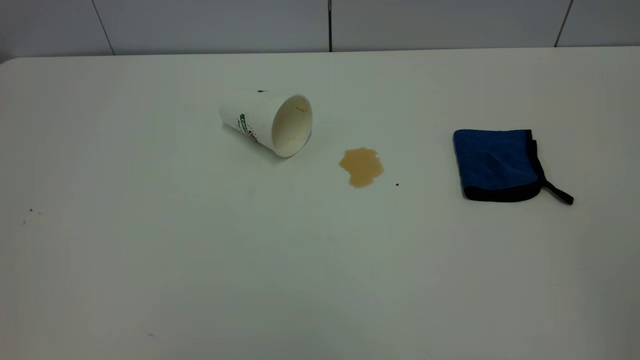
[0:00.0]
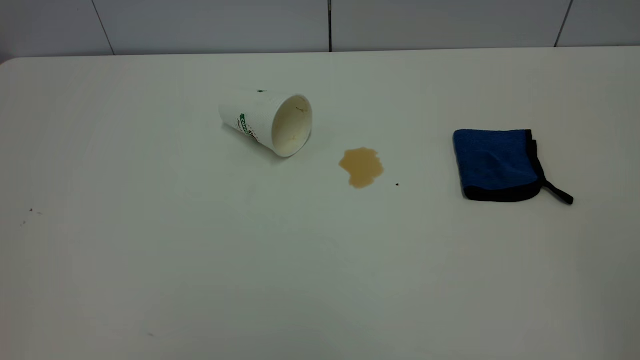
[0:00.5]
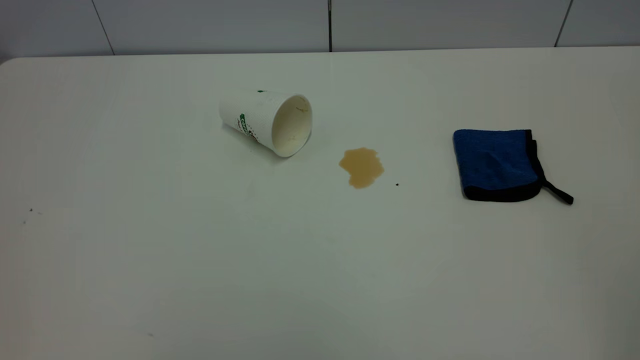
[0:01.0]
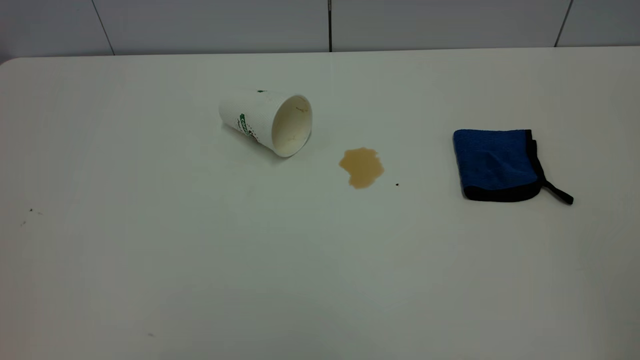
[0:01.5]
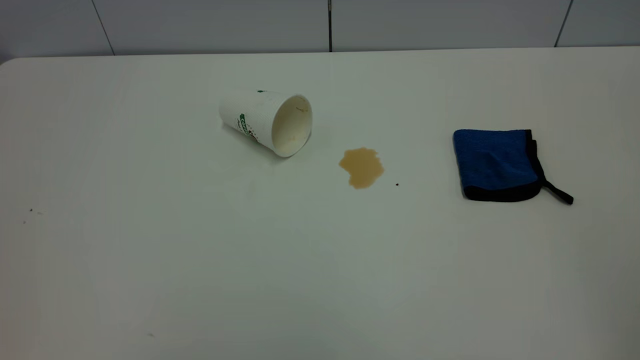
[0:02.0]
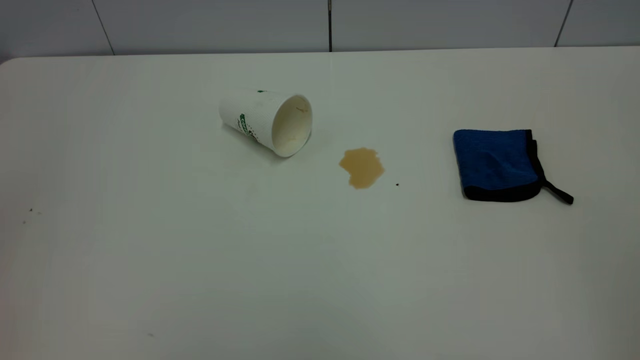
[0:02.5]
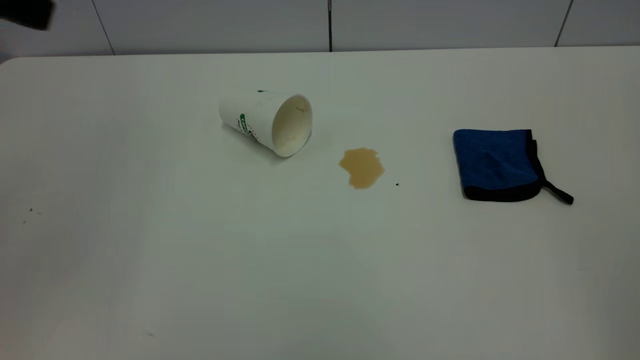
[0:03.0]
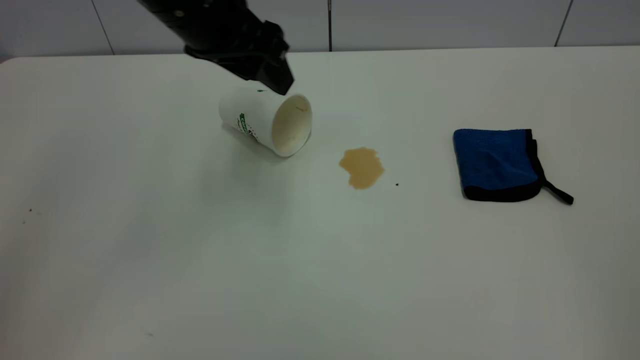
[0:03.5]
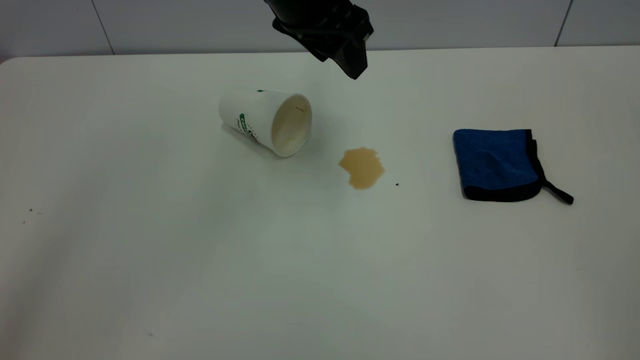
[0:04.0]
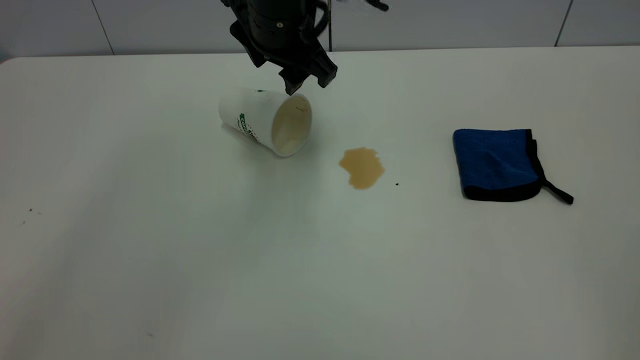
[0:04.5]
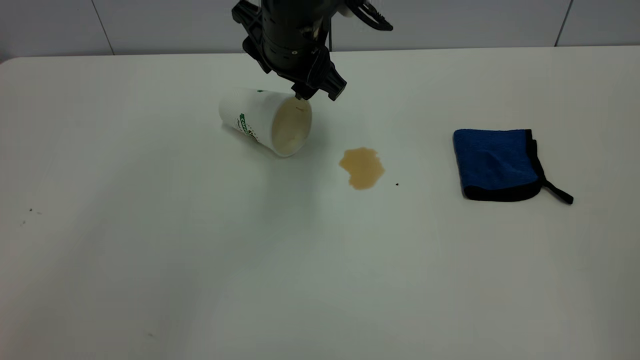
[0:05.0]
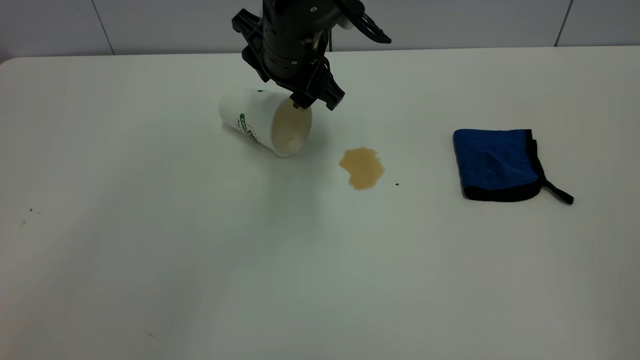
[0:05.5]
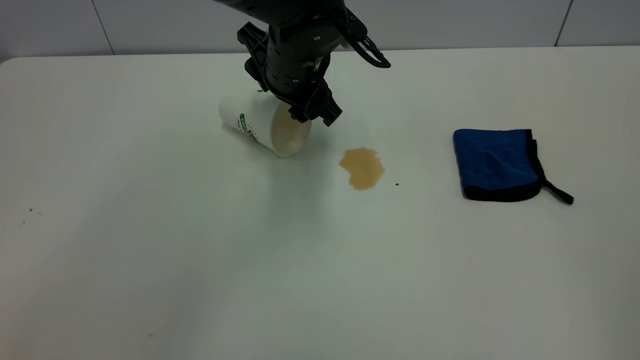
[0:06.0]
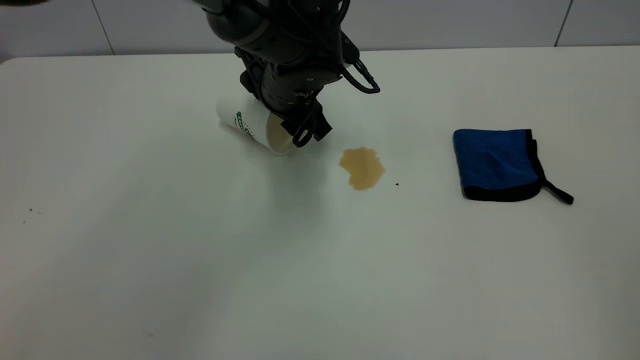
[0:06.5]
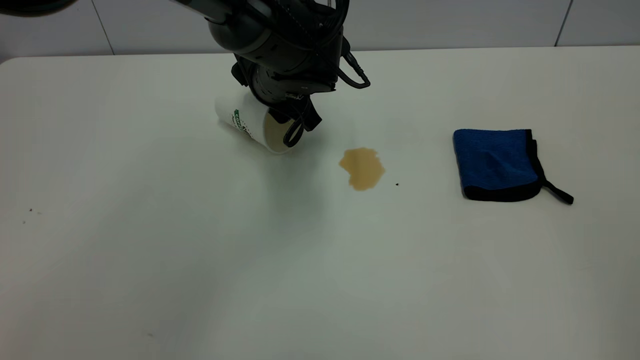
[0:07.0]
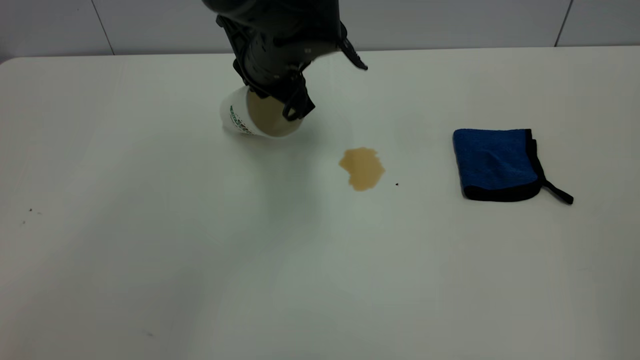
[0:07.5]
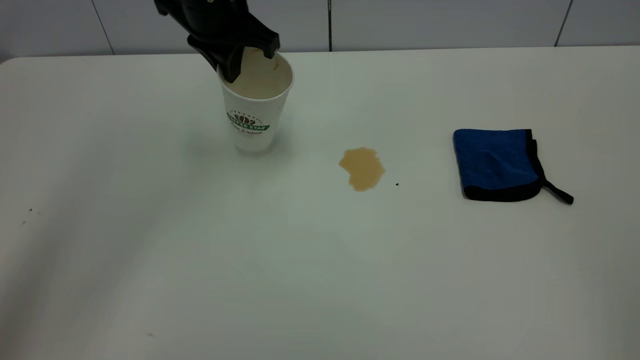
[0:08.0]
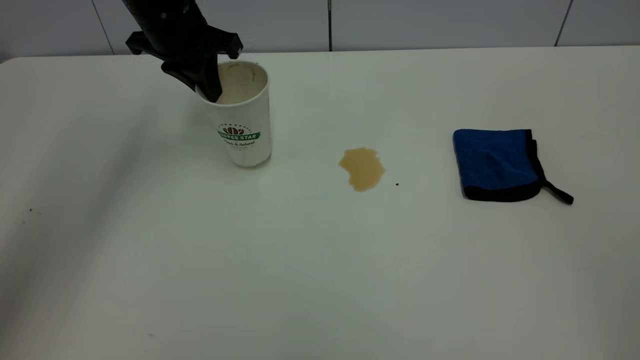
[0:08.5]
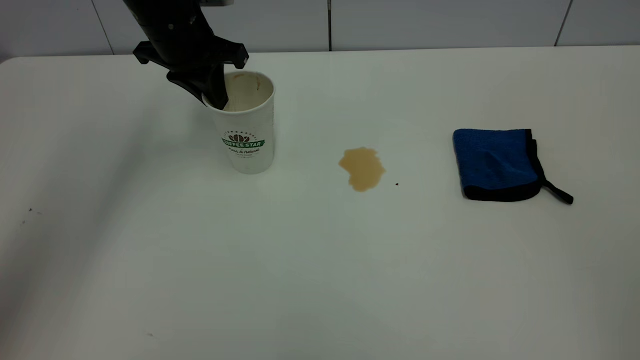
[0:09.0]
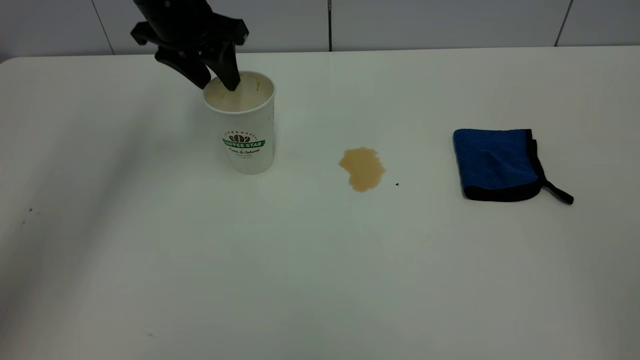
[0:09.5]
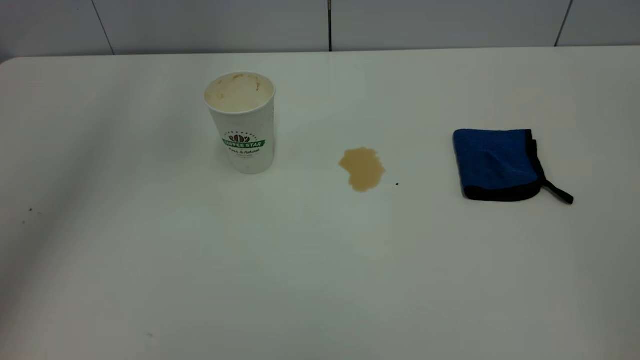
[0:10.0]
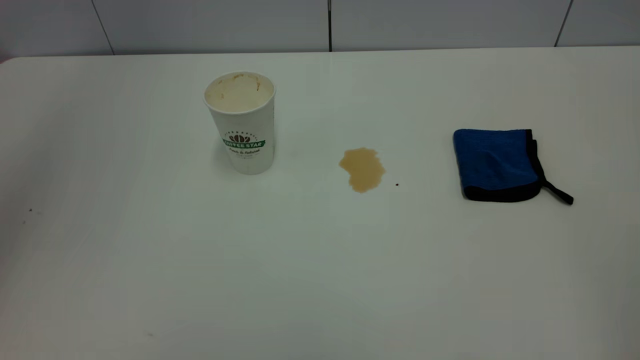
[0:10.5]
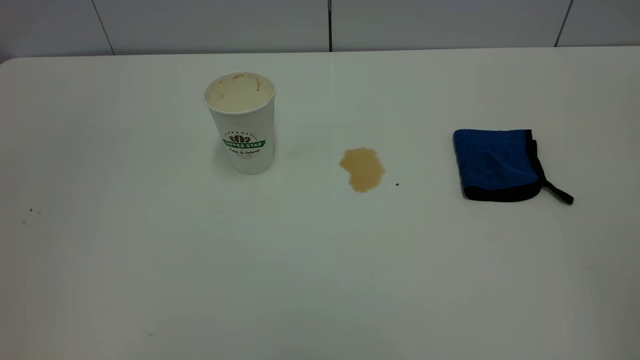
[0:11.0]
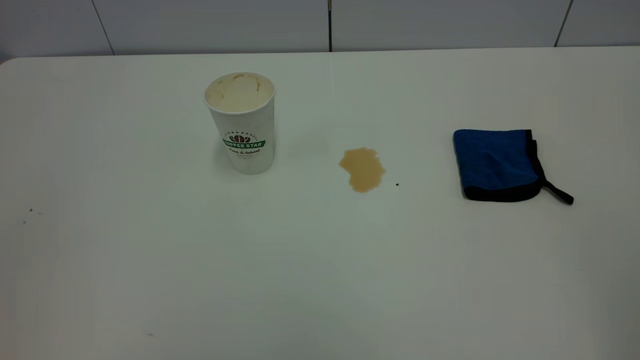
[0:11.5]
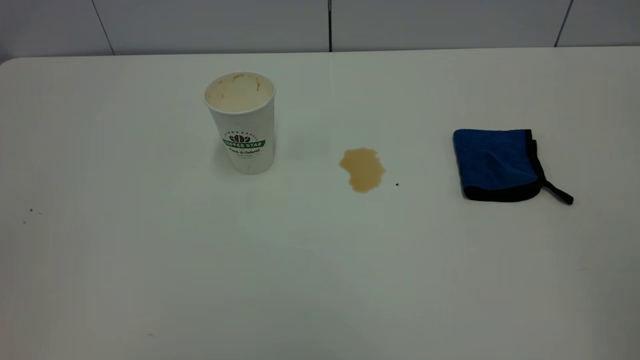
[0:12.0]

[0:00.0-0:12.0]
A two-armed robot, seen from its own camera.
Task of the whole recording: the left gripper pick up the fallen cup and place it upright, the right gripper grasp the blue rag and wipe the tea stain on the table, the right gripper put the blue rag back in its original position.
Step, 0:00.0 to 0:09.5: Stand the paper cup upright.
0:00.0 to 0:02.0: Neither gripper changes place.
0:02.0 to 0:04.0: The left gripper goes some 50 cm forward and to the right.
0:04.0 to 0:06.0: The left gripper heads downward, covering about 10 cm.
0:06.0 to 0:08.0: The left gripper goes some 10 cm to the left and upward, and closes.
0:08.0 to 0:10.0: The left gripper heads upward, covering some 15 cm, and opens up.
0:10.0 to 0:12.0: The left gripper shifts roughly 40 cm backward.

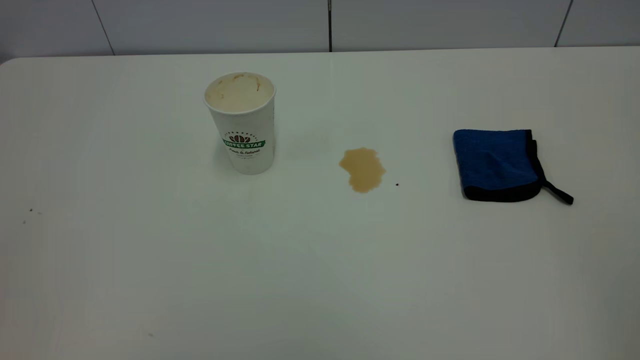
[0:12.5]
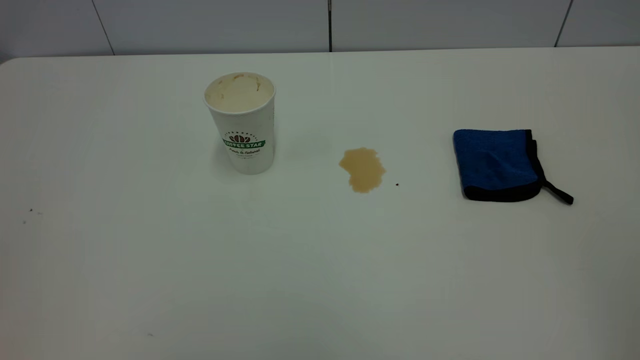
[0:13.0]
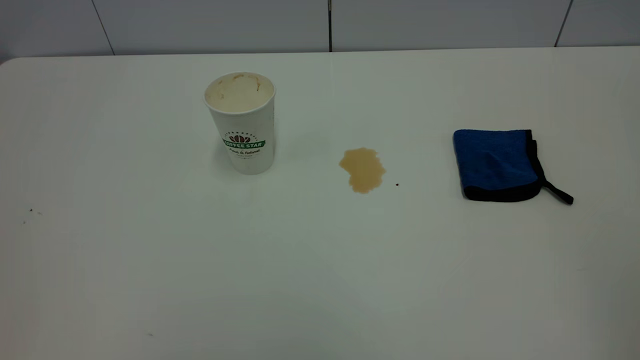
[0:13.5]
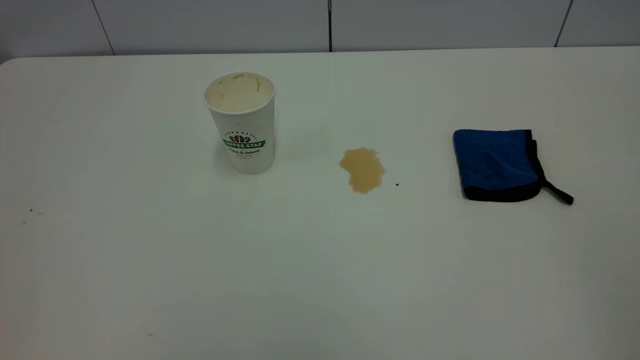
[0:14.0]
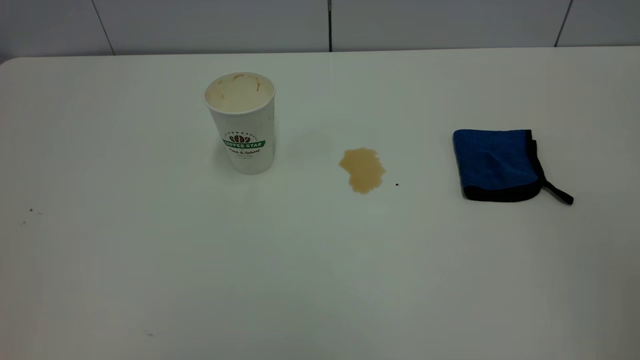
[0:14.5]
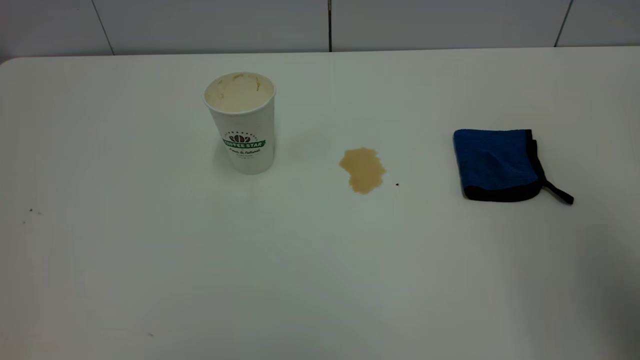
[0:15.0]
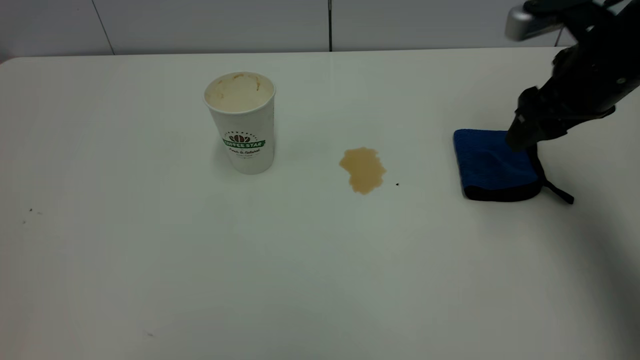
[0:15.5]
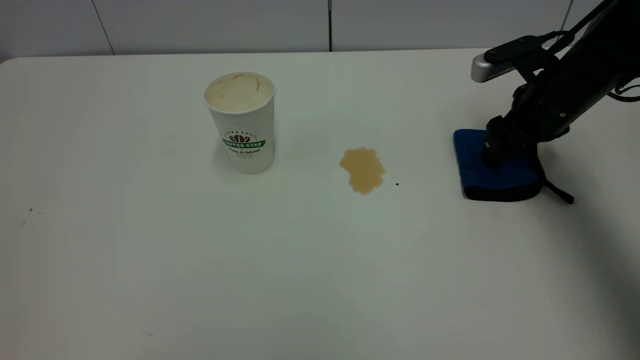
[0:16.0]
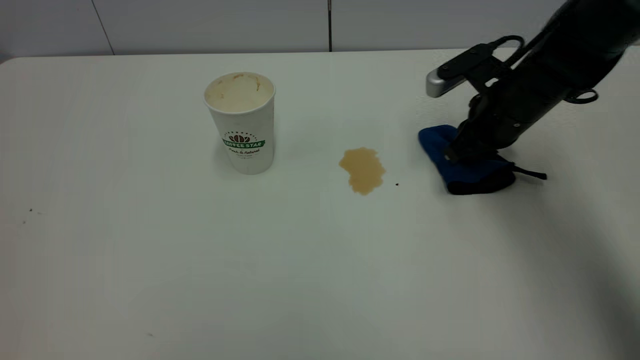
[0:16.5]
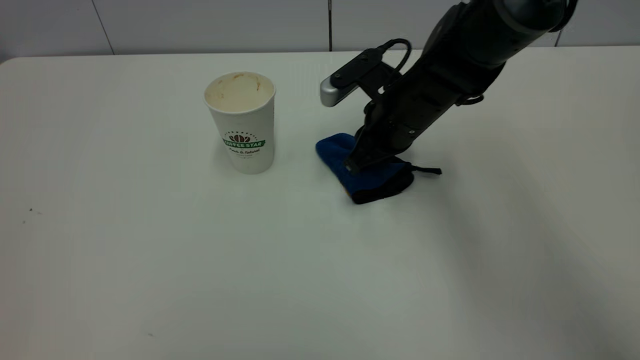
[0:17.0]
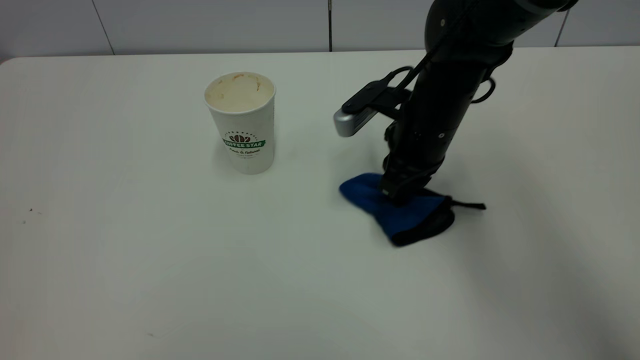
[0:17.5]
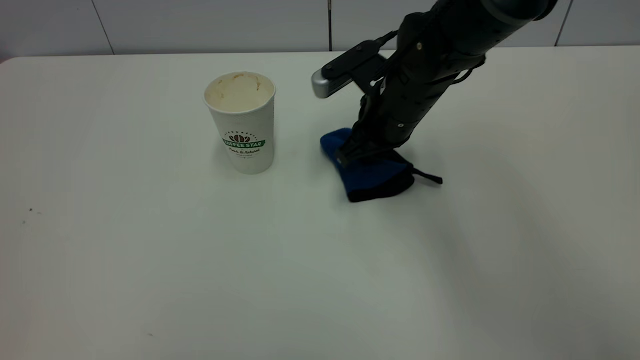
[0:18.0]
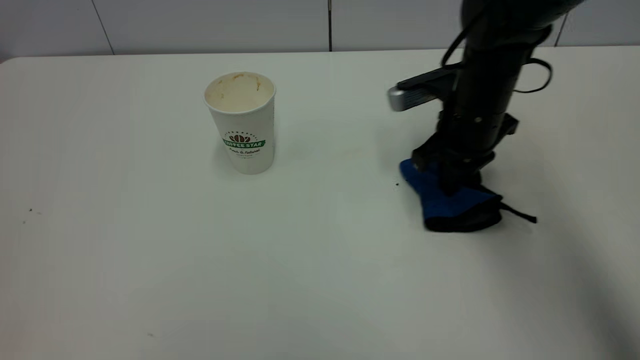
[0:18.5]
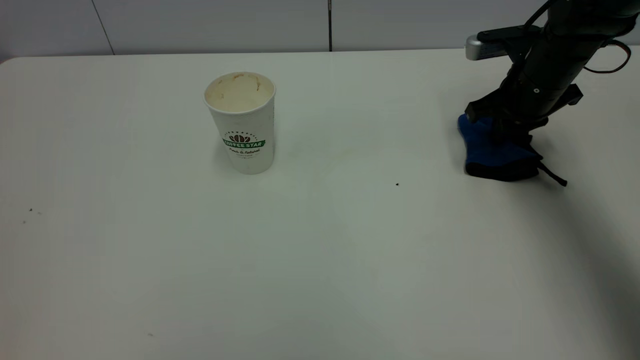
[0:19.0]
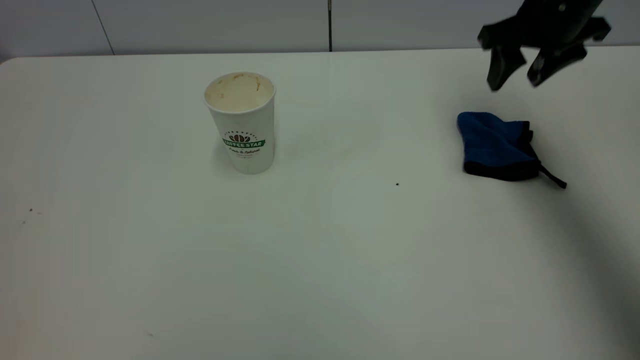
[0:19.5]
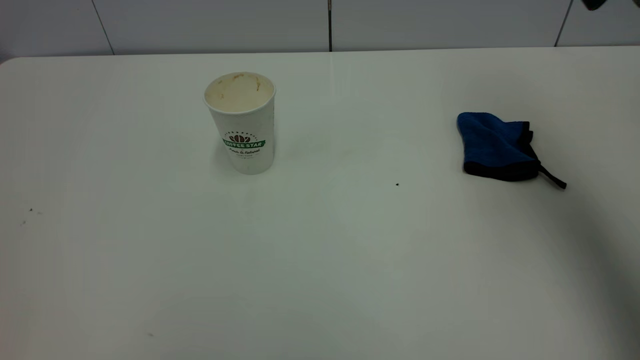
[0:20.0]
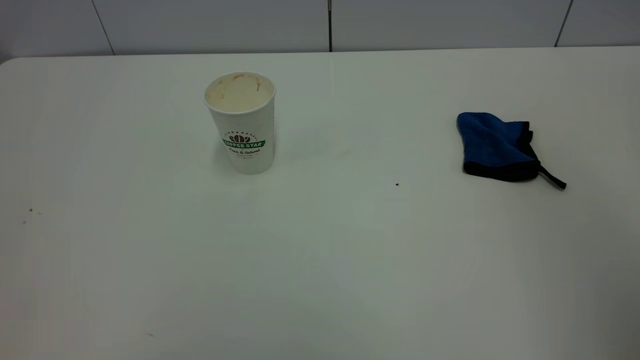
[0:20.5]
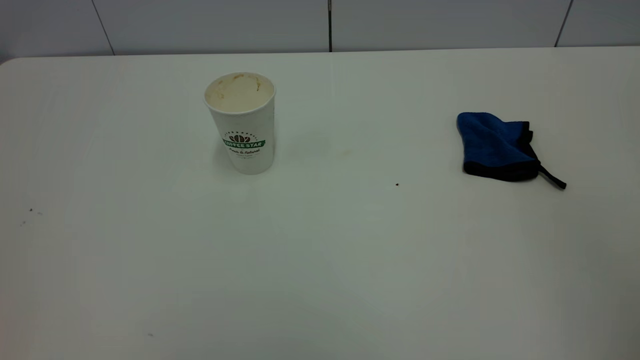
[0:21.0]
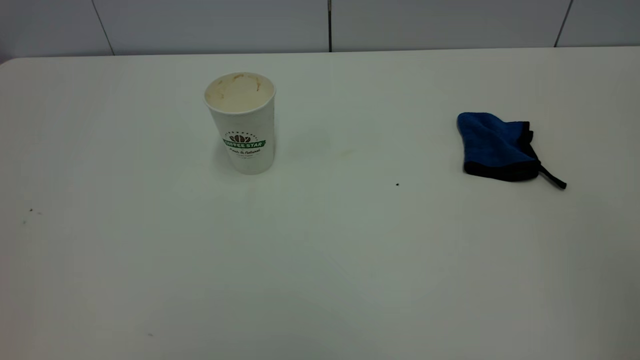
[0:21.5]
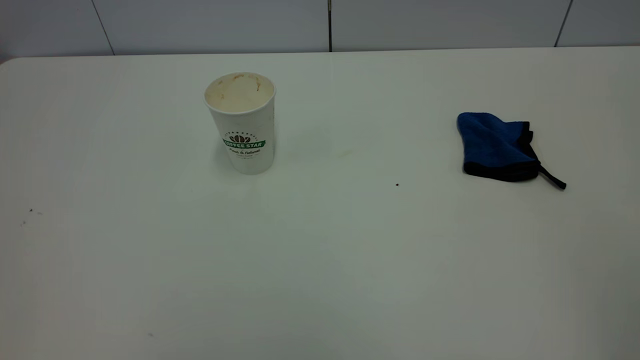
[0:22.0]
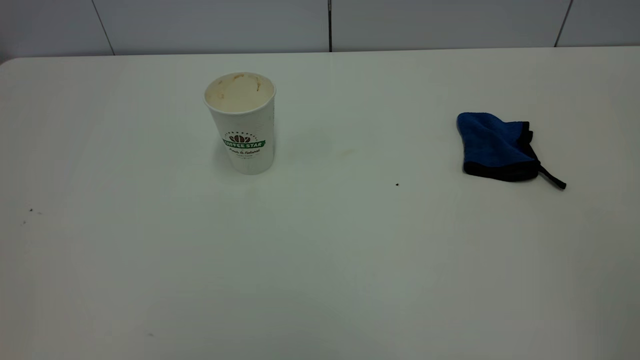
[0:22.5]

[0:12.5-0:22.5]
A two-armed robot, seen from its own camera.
Task of the whole recording: the left gripper pick up the fallen cup and place it upright, the right gripper grasp the blue rag and wipe the tea stain on the table, the right gripper put the blue rag back in its original position.
Step, 0:12.5 to 0:19.5: Wipe the stains off the table with a rag.
0:14.5 to 0:16.5: The right gripper is displaced forward and downward by approximately 50 cm, and closes.
0:16.5 to 0:18.5: The right gripper travels to the left and back again, some 15 cm each way.
0:18.5 to 0:20.5: The right gripper heads backward and upward, covering about 40 cm, and opens up.
